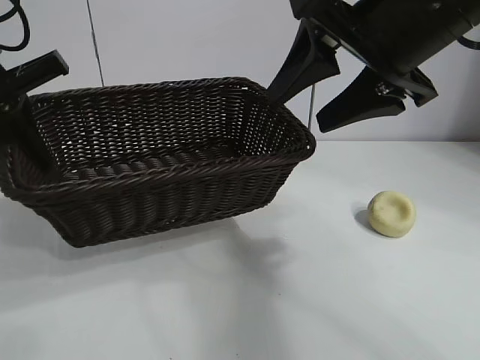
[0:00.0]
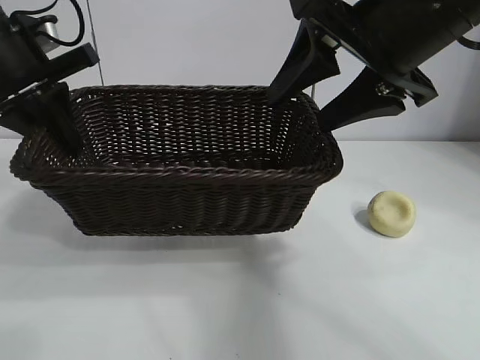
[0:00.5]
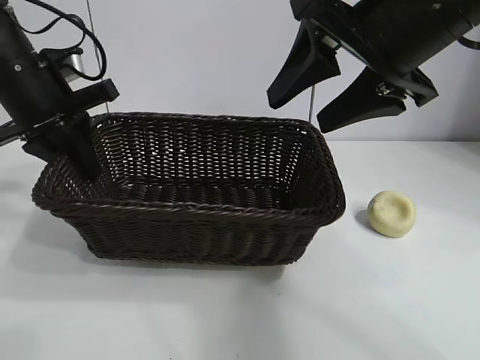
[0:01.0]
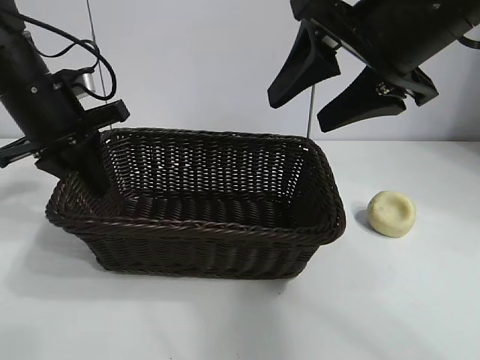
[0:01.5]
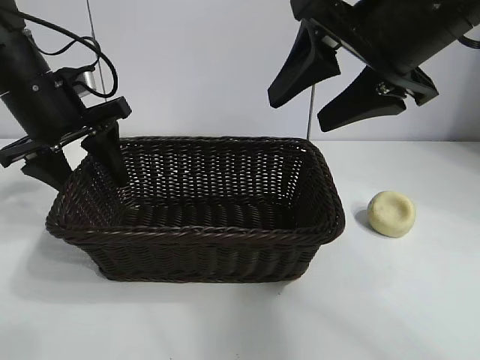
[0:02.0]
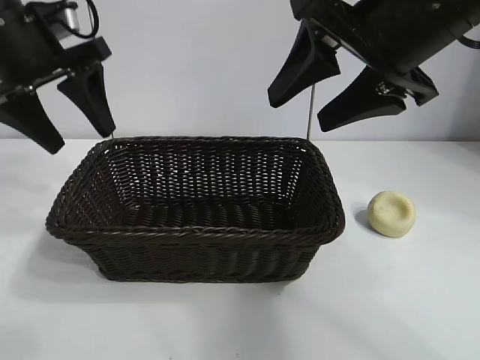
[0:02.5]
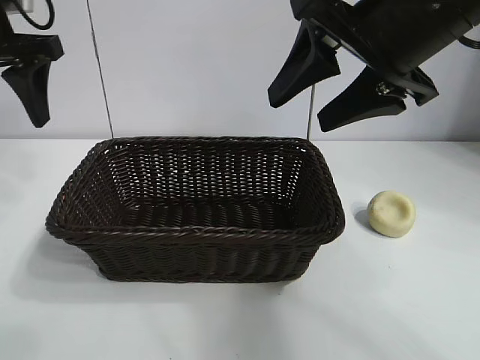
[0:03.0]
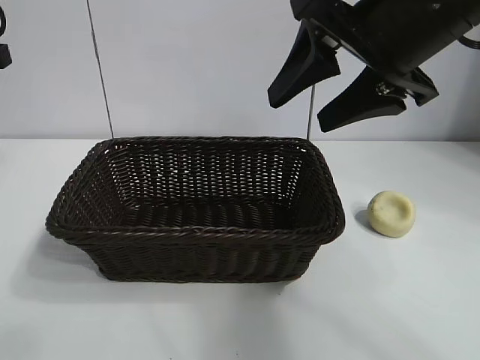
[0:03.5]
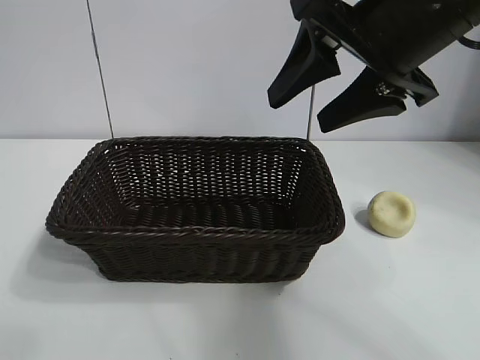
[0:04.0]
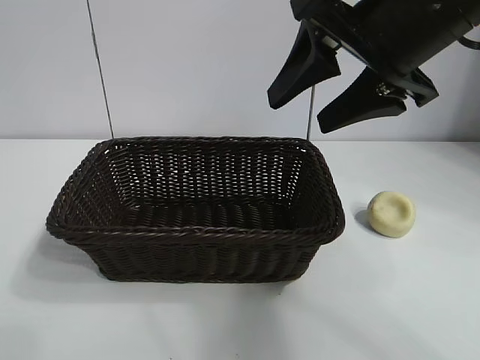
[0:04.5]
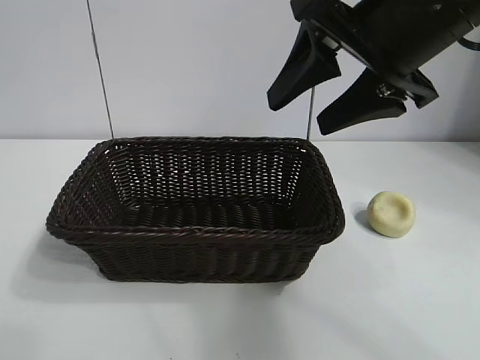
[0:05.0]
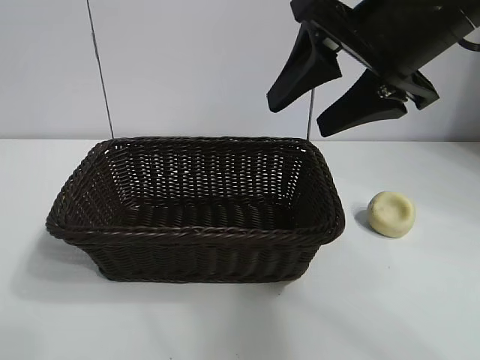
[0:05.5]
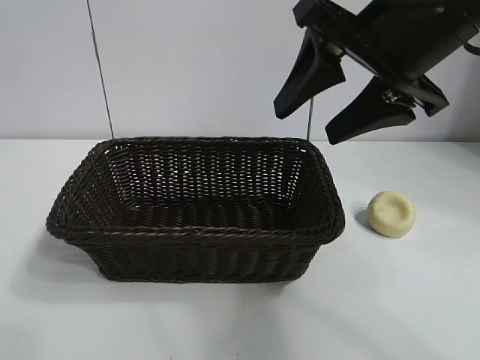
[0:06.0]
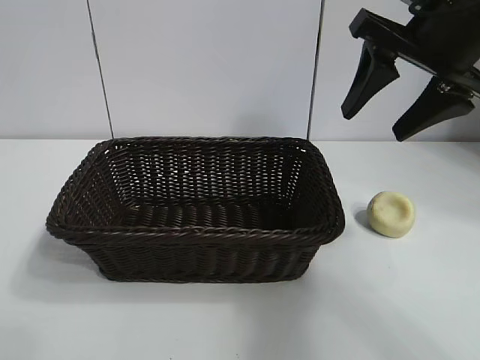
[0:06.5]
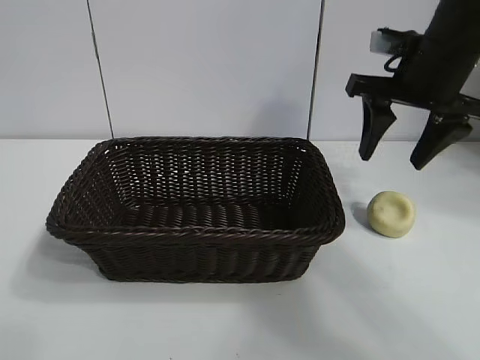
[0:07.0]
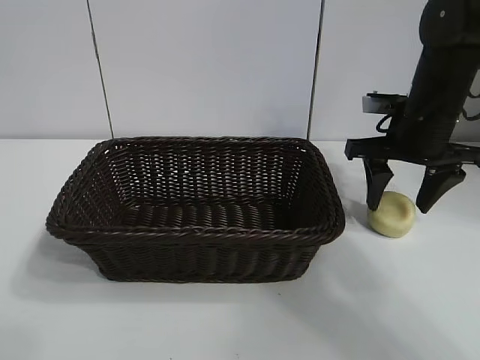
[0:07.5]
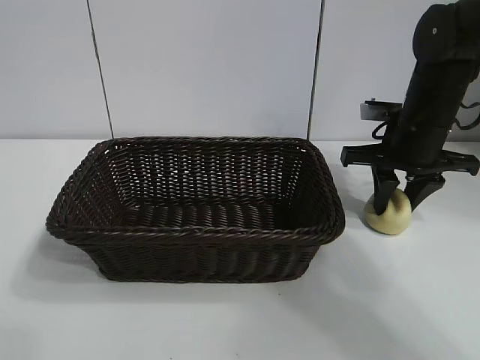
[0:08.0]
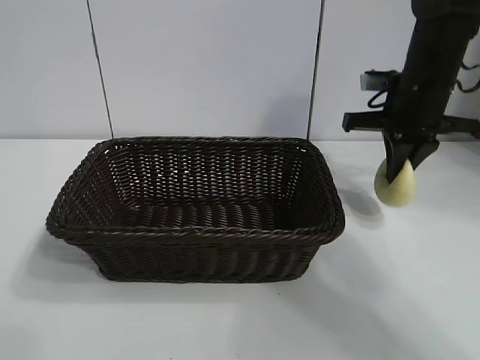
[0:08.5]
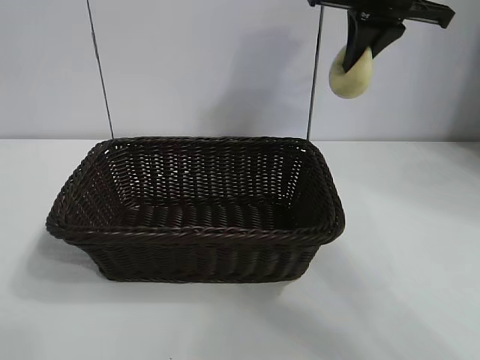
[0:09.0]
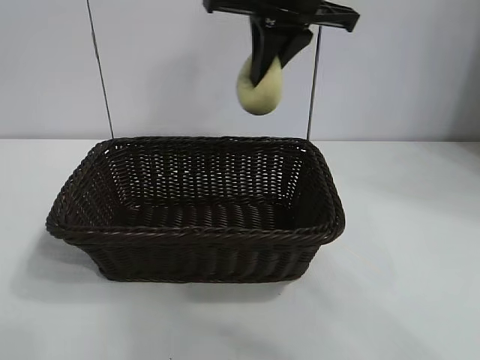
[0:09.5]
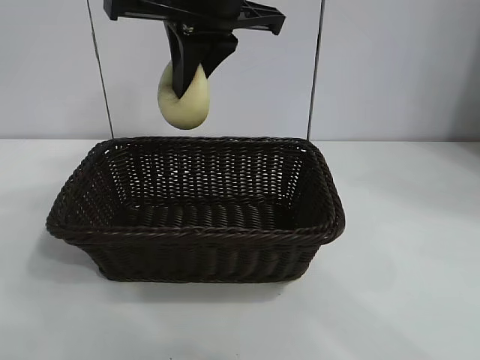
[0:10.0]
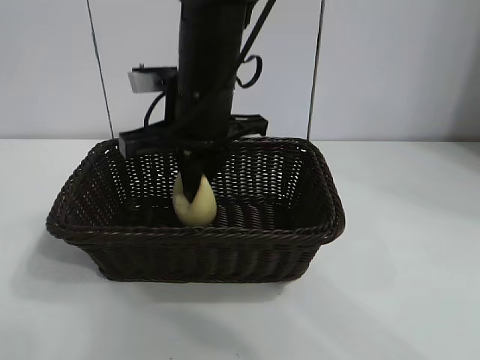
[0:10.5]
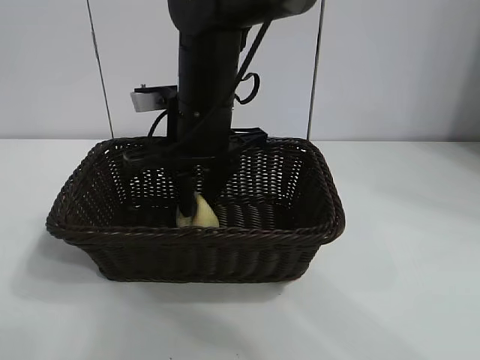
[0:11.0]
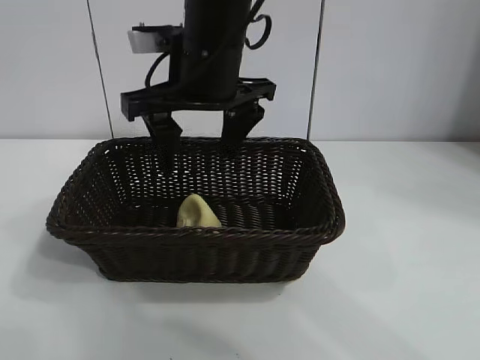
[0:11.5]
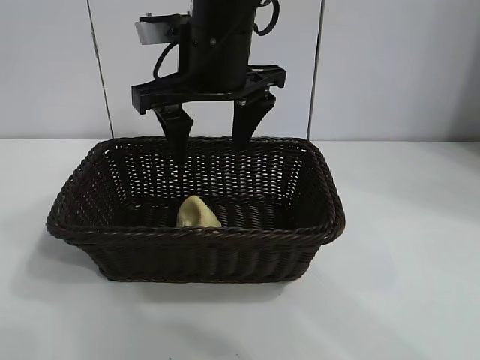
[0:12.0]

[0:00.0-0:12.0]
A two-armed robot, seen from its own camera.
Task of the whole recording: pick up the egg yolk pastry and put it into the basket.
Step, 0:00.0 to 0:02.0: Place the basket in the center of view with left gripper.
Step, 0:02.5 to 0:08.0: Grasp egg yolk pastry with right gripper.
Step, 0:08.5 to 0:11.0: Place the egg yolk pastry in the basket with right gripper.
